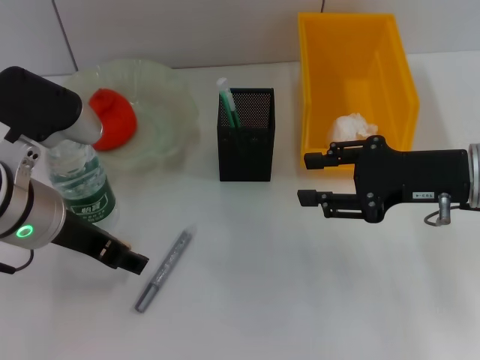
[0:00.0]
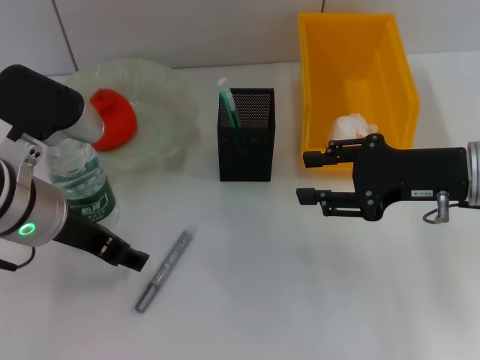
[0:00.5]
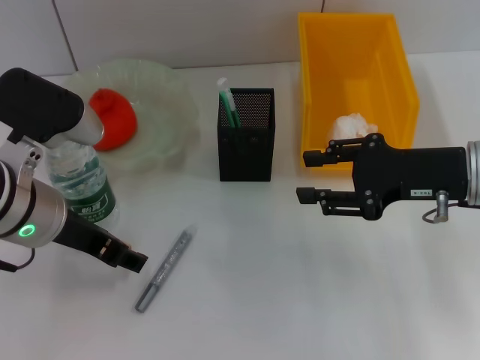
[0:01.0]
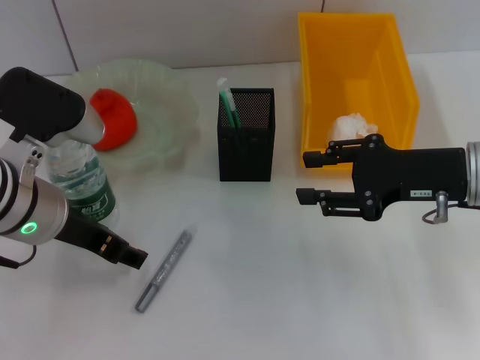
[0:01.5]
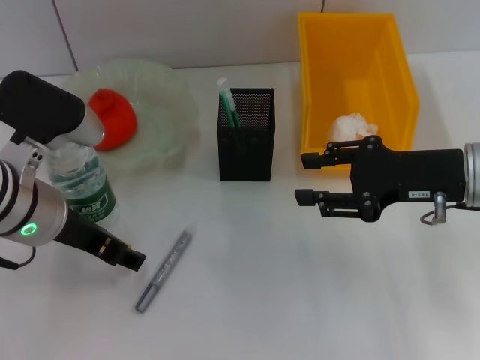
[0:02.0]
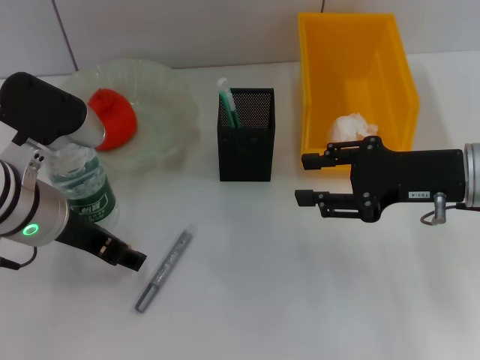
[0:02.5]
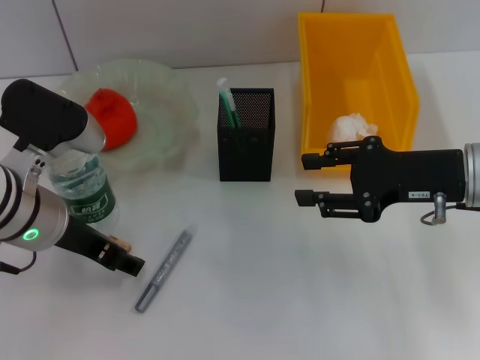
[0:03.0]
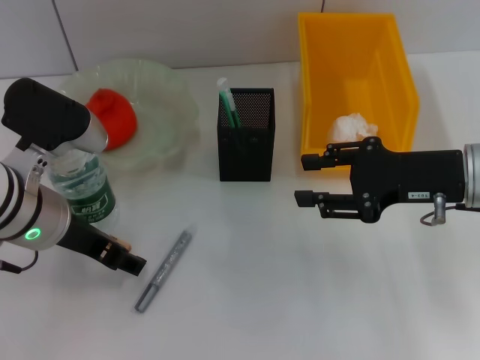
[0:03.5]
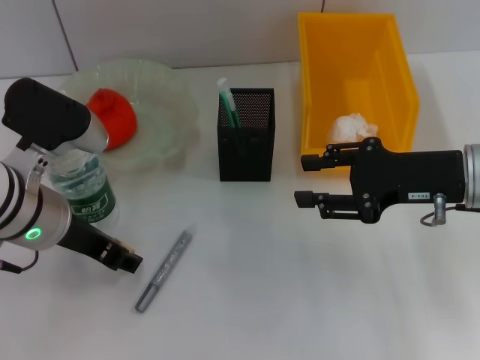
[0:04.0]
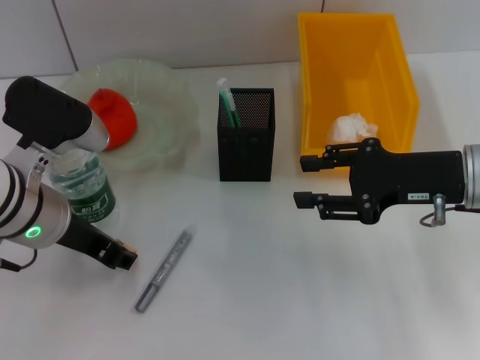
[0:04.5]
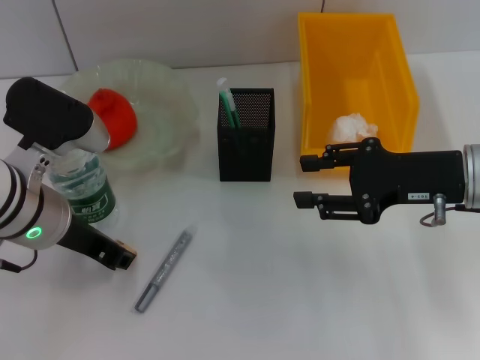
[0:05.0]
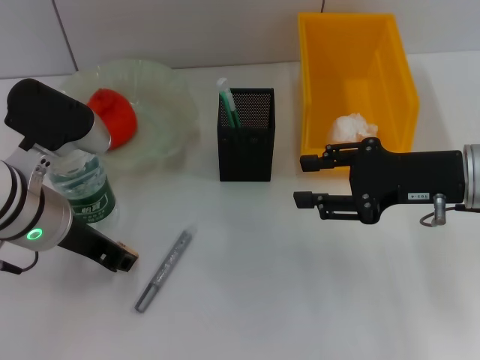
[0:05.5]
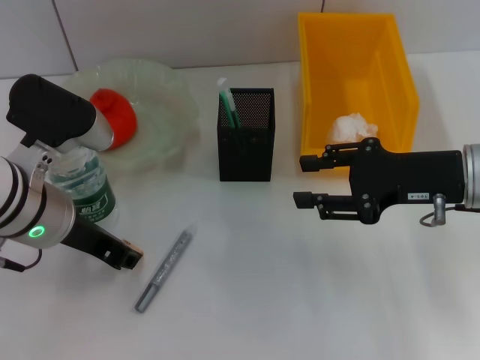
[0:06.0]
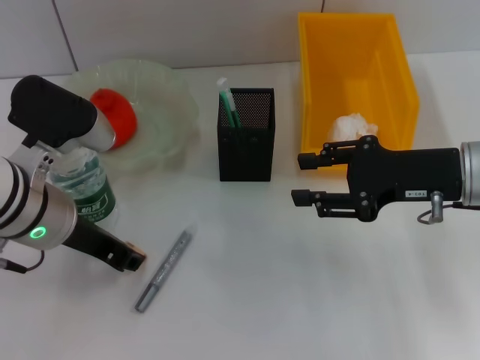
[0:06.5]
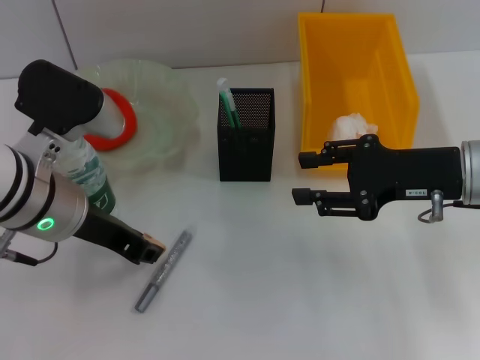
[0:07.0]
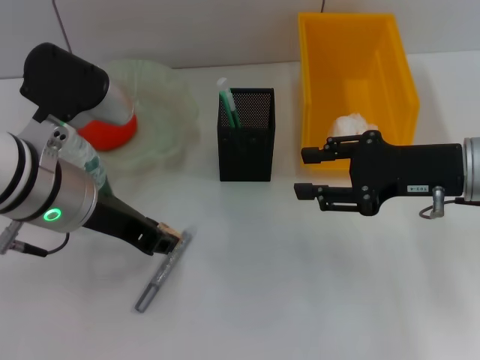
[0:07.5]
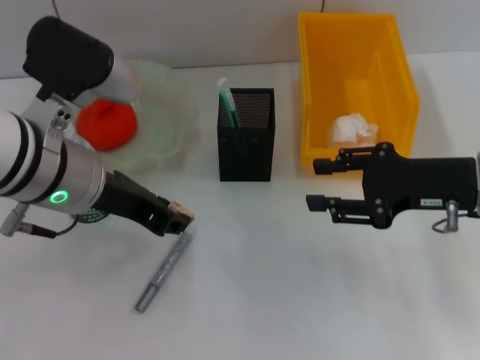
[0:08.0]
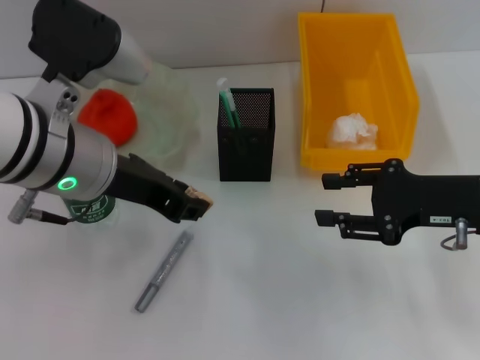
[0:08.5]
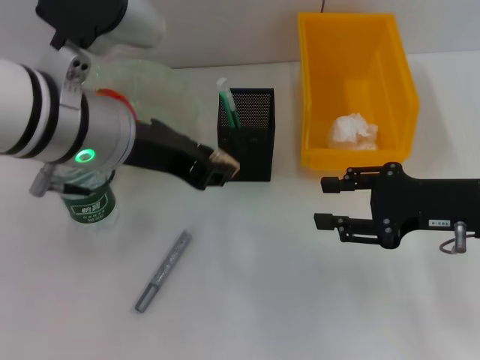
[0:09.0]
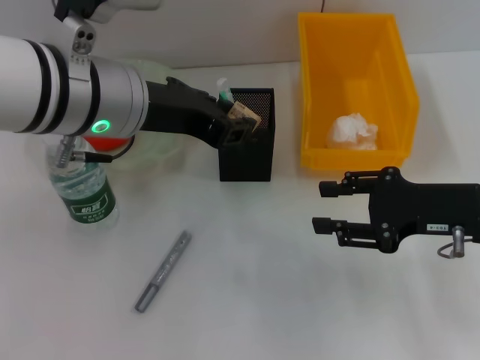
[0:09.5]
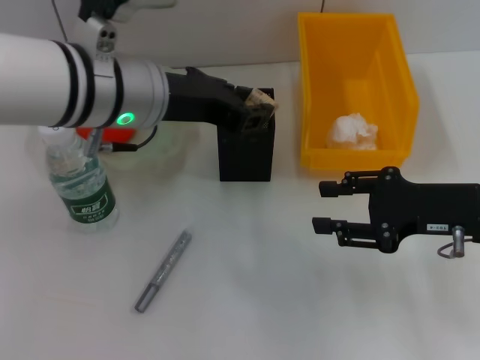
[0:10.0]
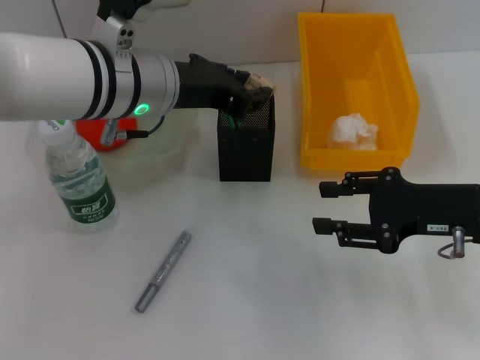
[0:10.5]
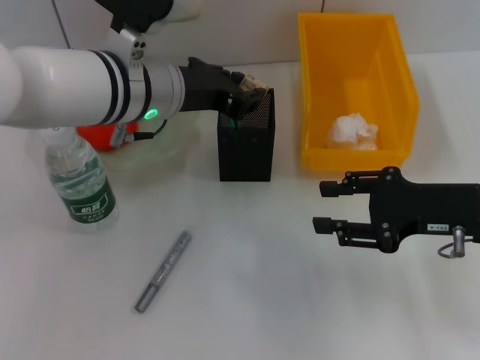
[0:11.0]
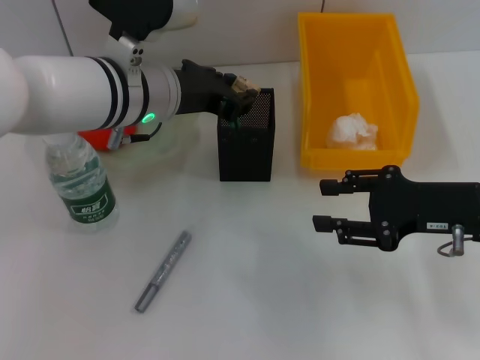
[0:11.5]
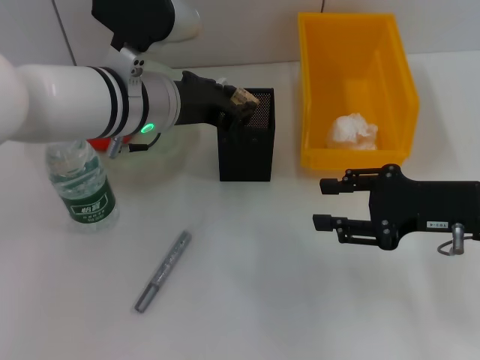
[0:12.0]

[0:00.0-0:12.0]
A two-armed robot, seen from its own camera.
Step, 0:00.0 to 0:05.5: Grab the eraser with the left hand.
0:00.0 to 0:02.0: The grippers move only a little.
0:02.0 to 0:04.0: Neither gripper changes place.
0:04.0 to 0:06.0: The left gripper closes.
0:06.0 to 0:08.0: The left gripper moves about 5 cm.
0:08.0 to 0:10.0: The left gripper ends up some 5 cm from where it was.
0:10.0 to 0:12.0: The left gripper shifts by roughly 5 cm.

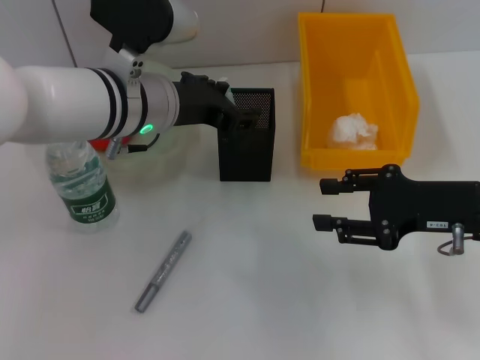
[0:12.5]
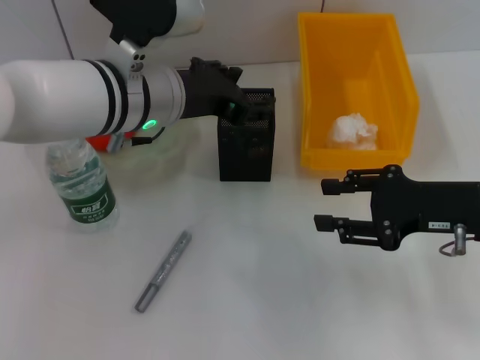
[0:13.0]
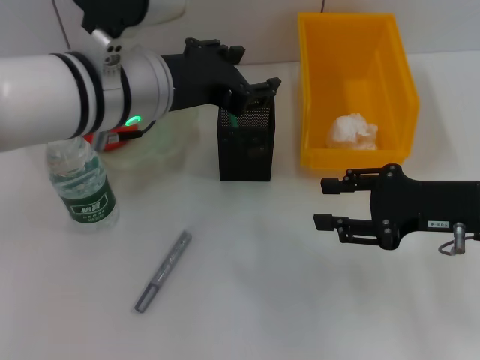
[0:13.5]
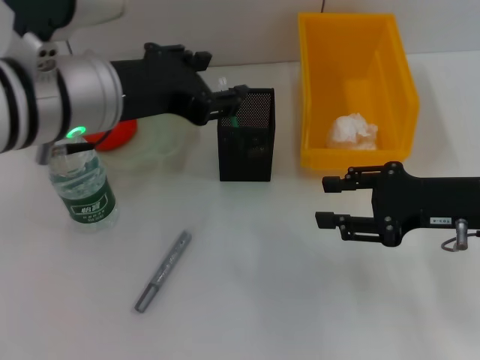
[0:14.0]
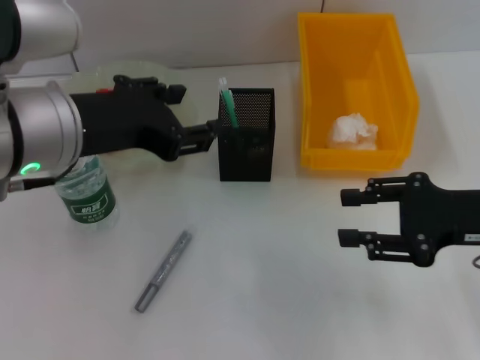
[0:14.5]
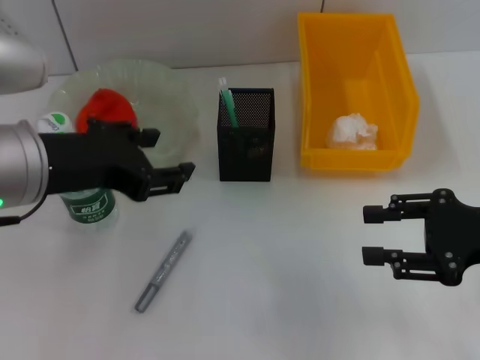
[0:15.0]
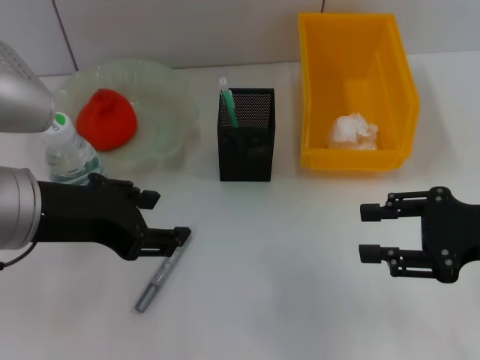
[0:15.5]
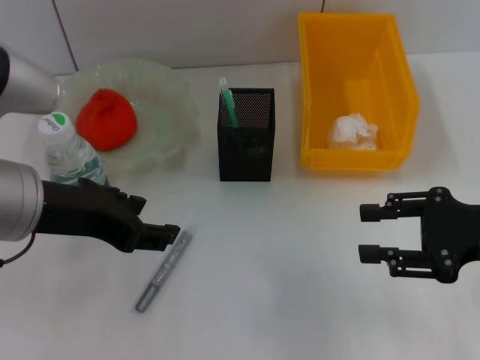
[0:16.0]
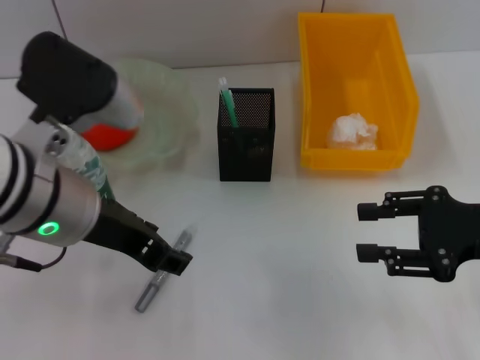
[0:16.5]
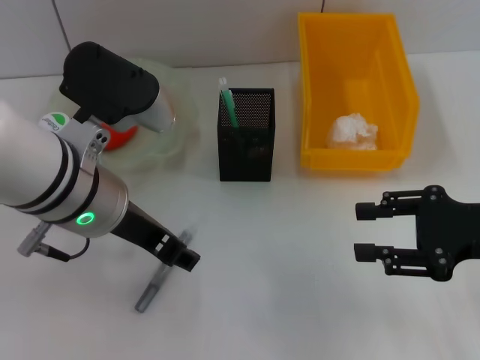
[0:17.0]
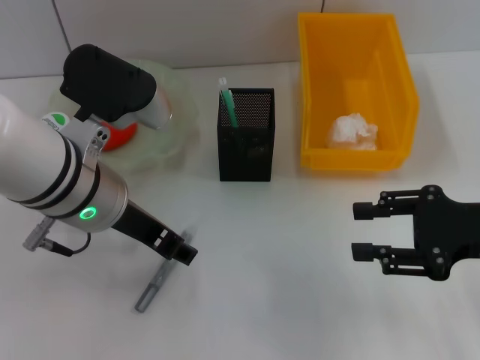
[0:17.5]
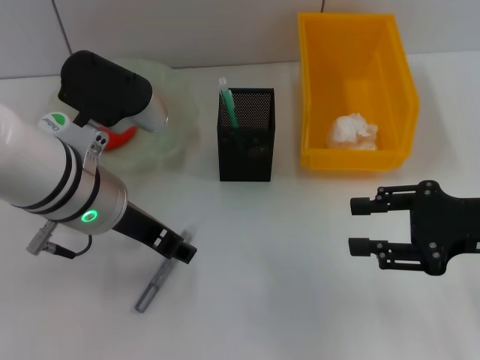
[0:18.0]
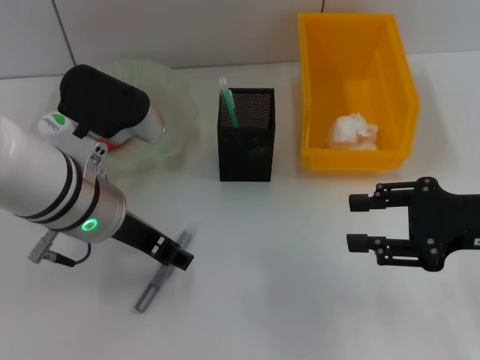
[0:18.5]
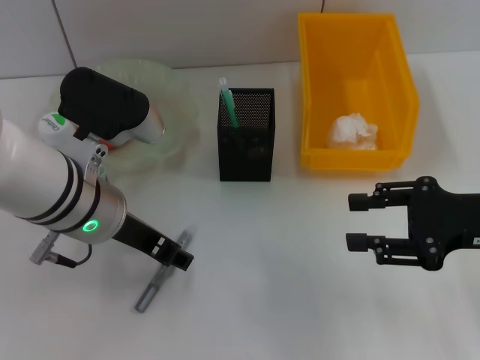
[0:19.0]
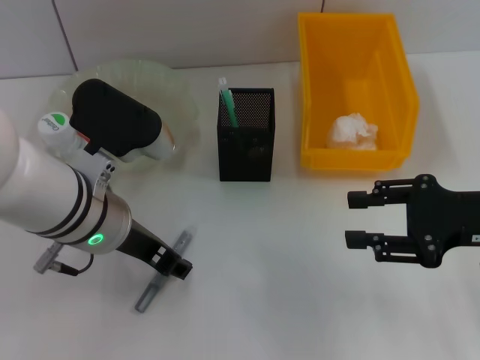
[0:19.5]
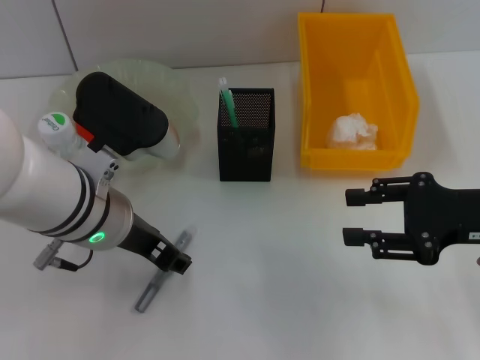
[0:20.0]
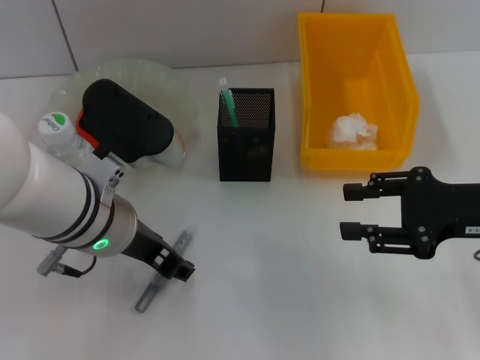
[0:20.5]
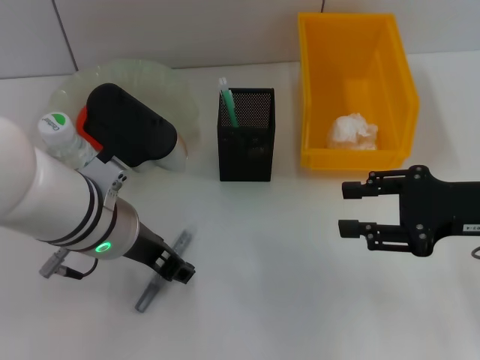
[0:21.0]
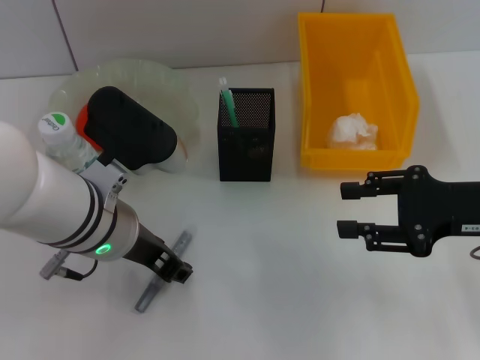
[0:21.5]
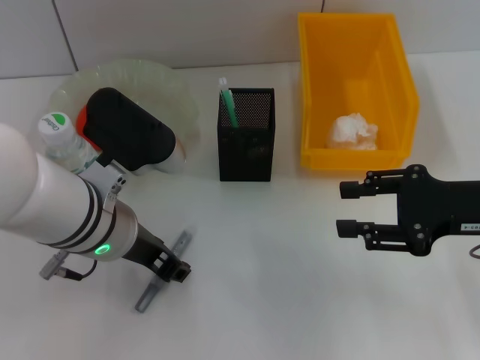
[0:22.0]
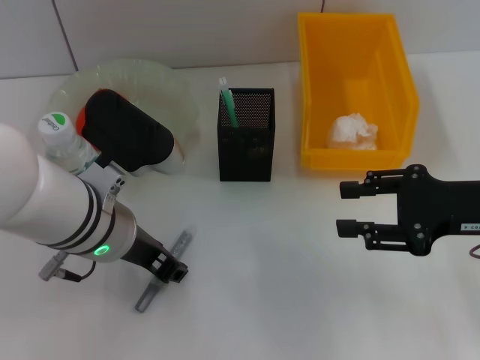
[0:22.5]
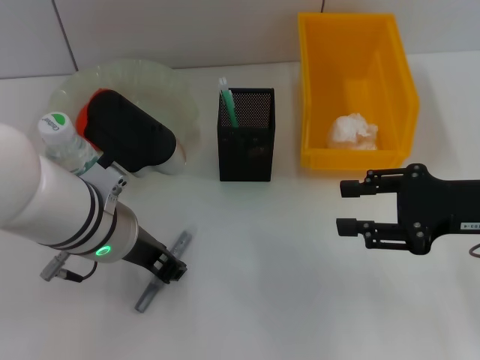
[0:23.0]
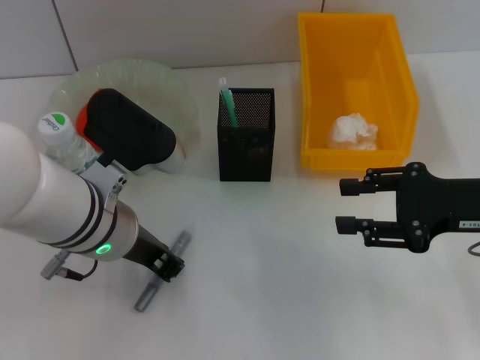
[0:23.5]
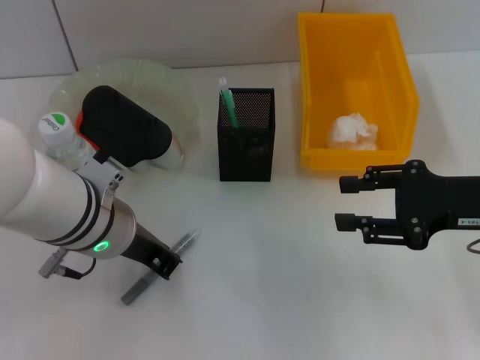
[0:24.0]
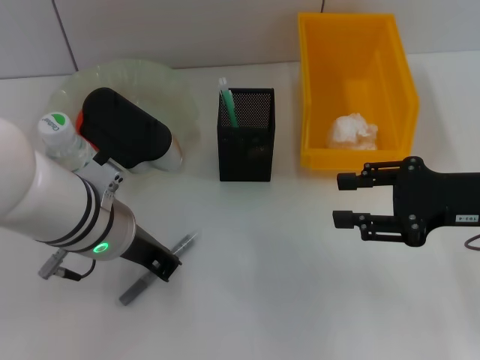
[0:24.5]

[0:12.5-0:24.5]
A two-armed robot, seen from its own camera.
0:12.5 to 0:14.5: The left gripper heads backward, to the left and upward, covering some 10 cm.
0:16.5 to 0:18.5: The left gripper is displaced downward by roughly 5 cm.
0:18.5 to 0:20.5: The grippers stay close to where they were, moving slightly.
0:20.5 to 0:22.5: Neither gripper changes place.
0:22.5 to 0:24.5: The left gripper closes its fingers.

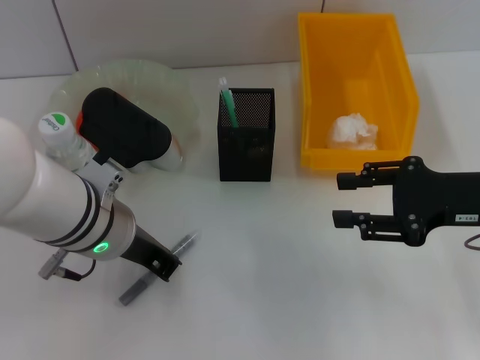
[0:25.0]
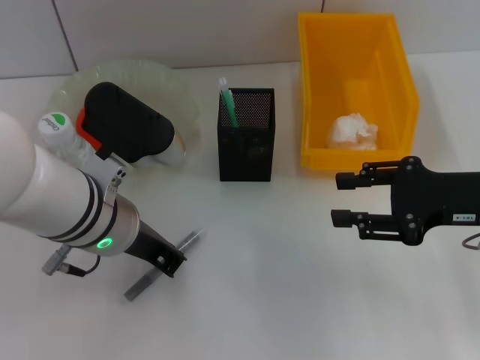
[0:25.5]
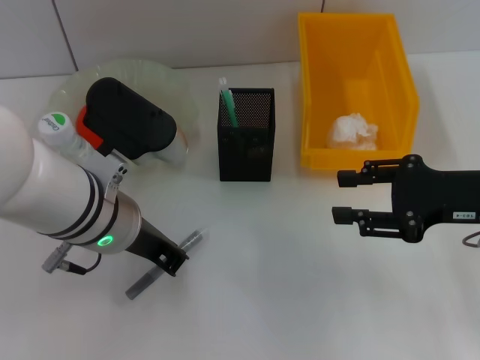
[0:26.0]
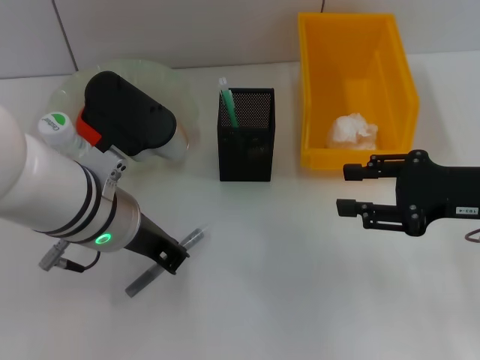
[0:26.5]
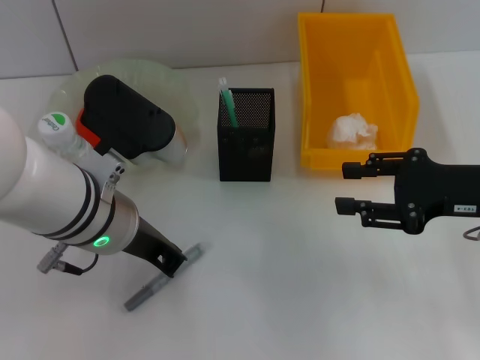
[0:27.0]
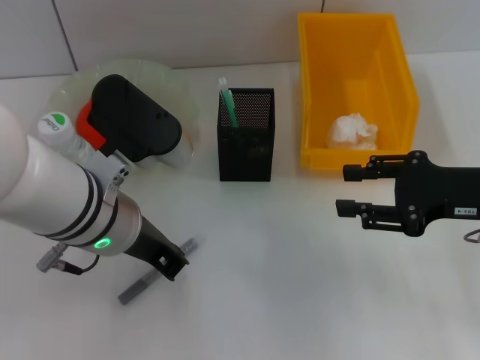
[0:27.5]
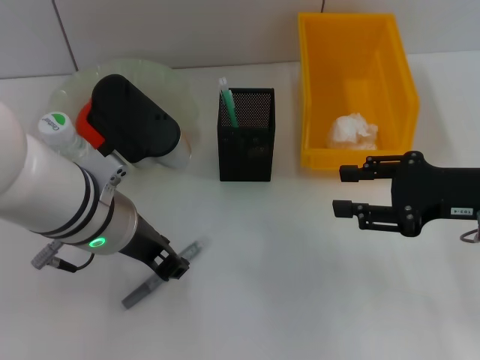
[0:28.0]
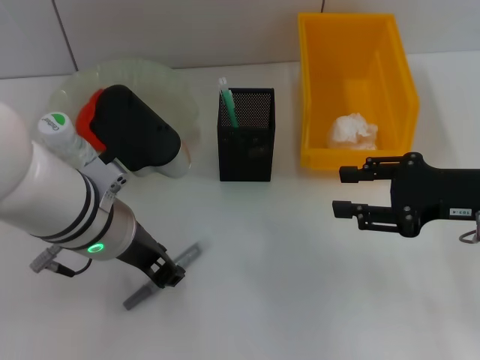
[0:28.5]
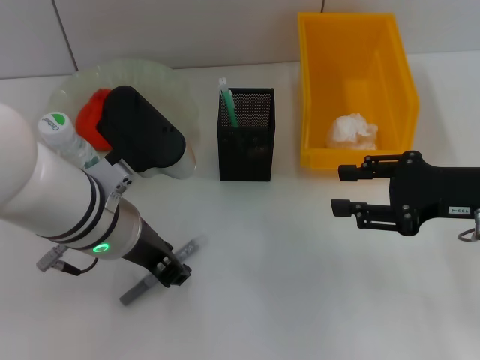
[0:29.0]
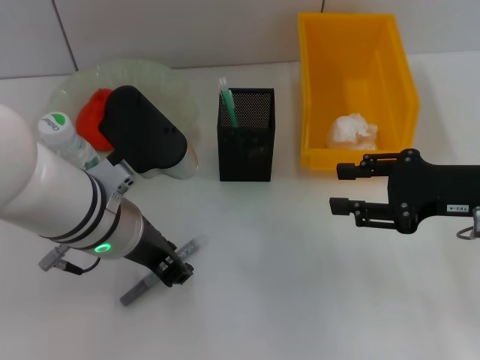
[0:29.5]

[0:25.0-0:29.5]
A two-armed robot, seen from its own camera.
0:25.0 to 0:27.0: The grippers make only small movements.
0:27.0 to 0:29.5: The left gripper opens its fingers.
